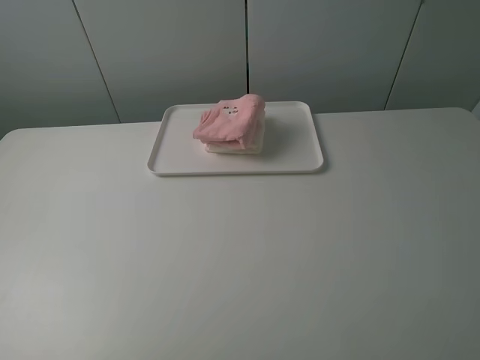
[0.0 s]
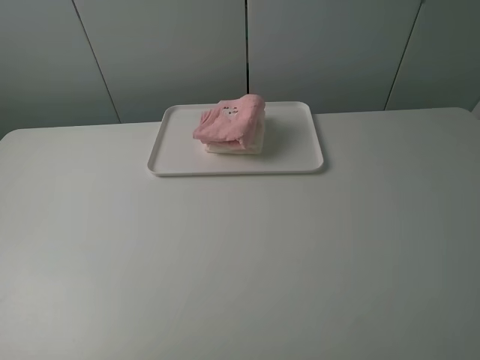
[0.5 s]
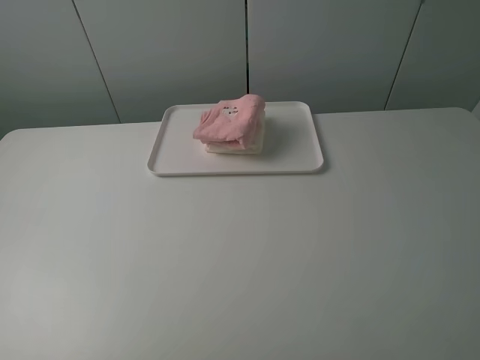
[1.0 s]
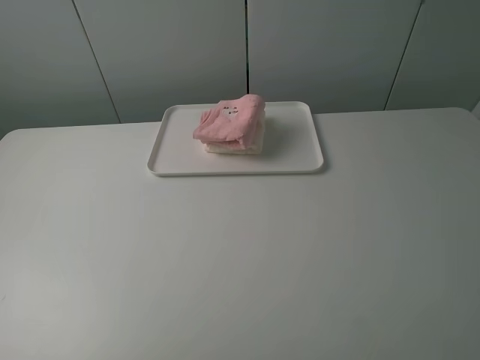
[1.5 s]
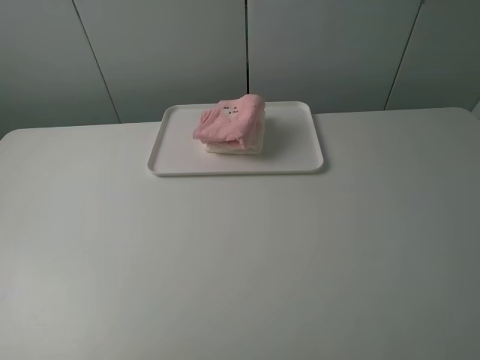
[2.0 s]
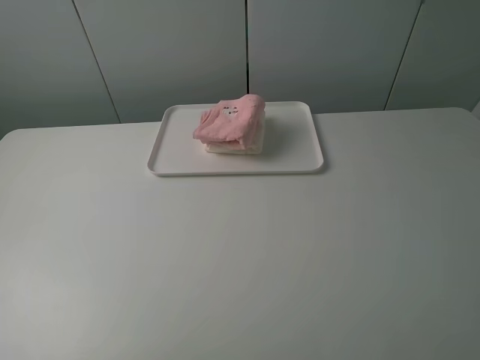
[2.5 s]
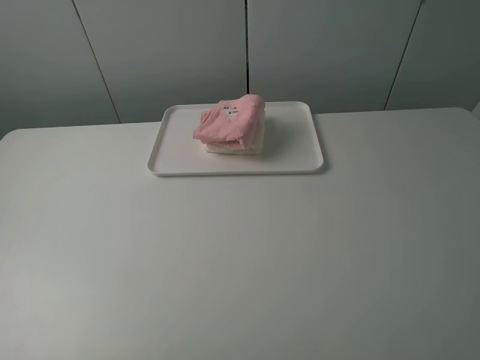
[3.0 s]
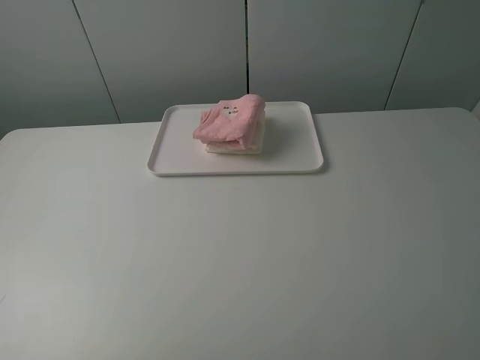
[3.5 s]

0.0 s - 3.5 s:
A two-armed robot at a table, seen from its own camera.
Task of the whole recording: fold one of the towels by two grippers and place it on the tray,then fold another towel by two grippers and place it on the folded towel.
2.0 s - 3.5 s: Both grippers stay about where they are.
